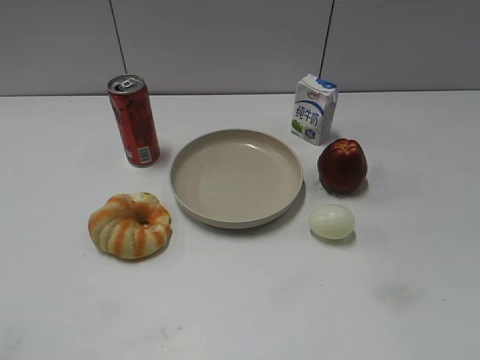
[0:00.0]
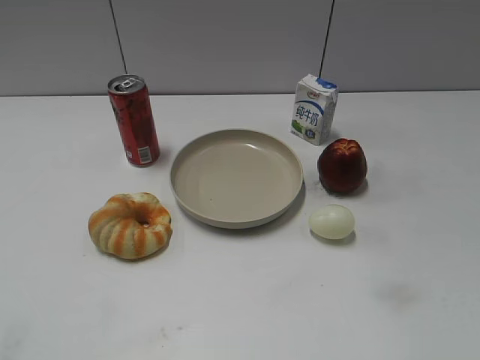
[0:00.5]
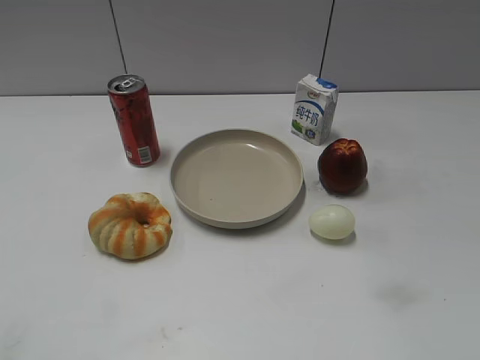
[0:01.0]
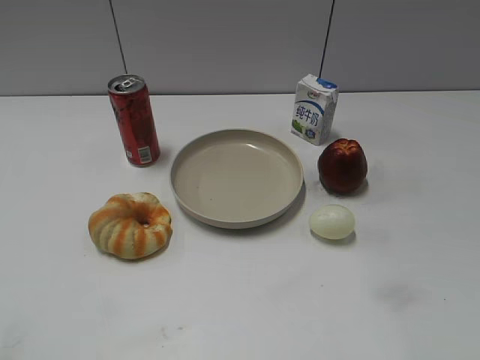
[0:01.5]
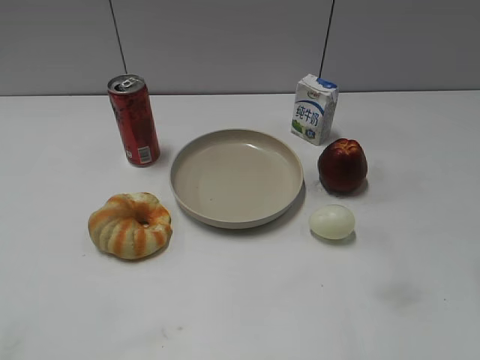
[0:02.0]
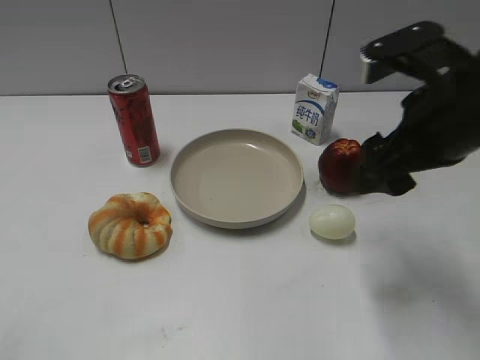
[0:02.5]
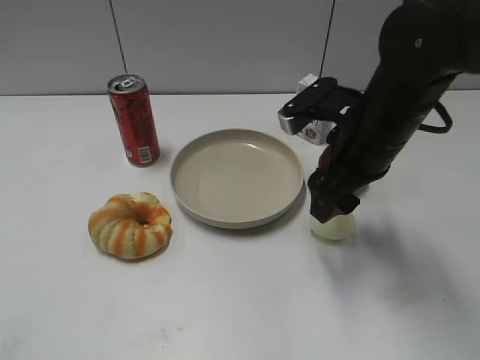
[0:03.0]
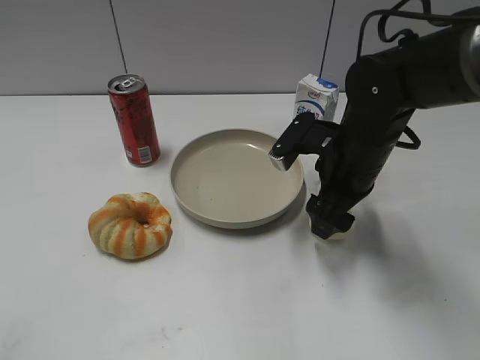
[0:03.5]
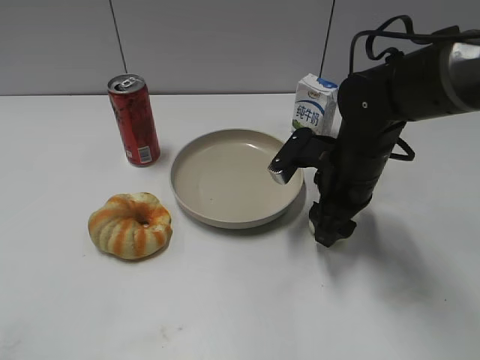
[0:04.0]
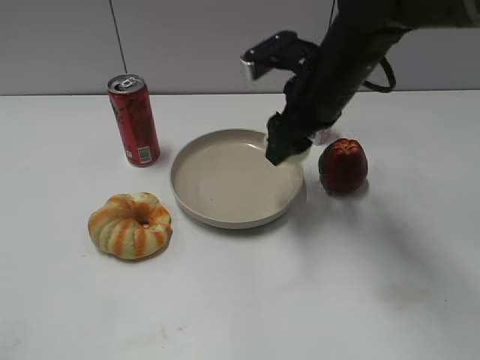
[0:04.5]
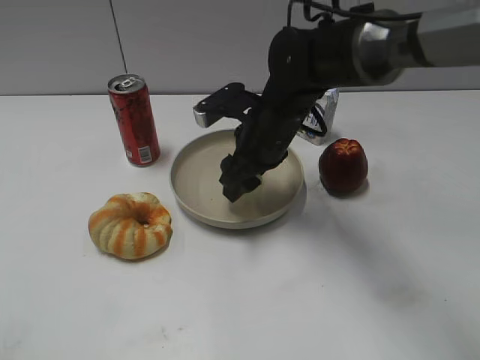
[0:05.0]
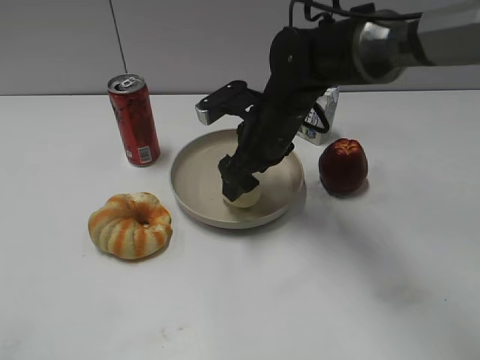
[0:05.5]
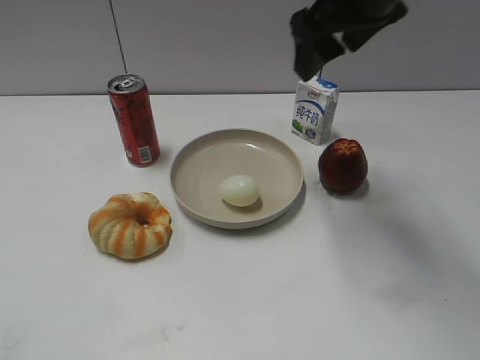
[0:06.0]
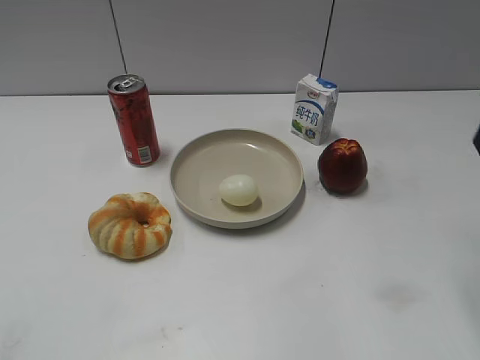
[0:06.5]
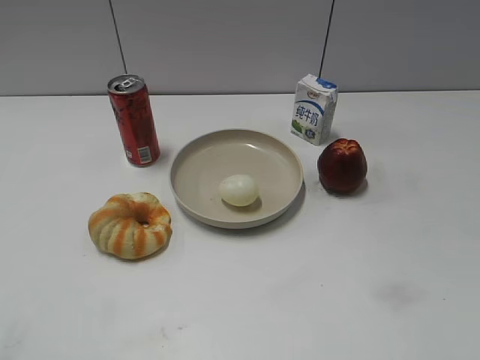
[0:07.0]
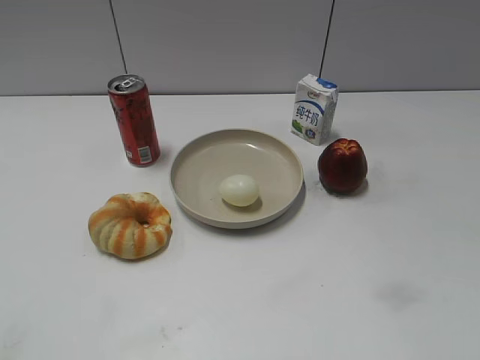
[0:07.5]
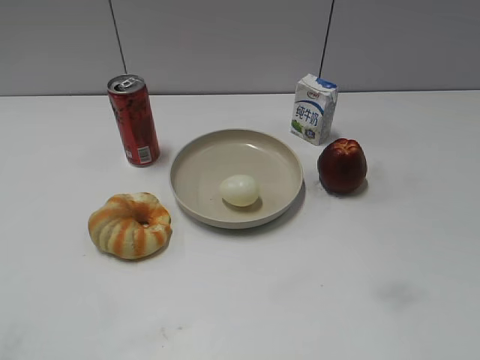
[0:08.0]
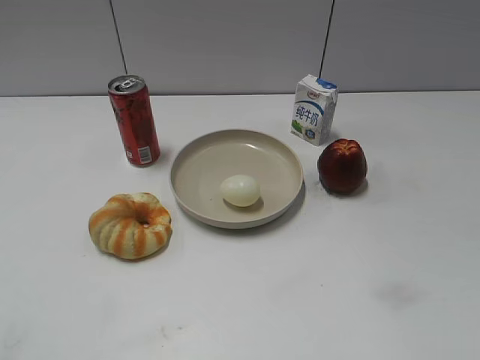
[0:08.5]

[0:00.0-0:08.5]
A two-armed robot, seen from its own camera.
Step, 0:01.5 to 0:04.0: Grasp the egg with right gripper.
Step, 0:04.5 to 0:05.5: Place the egg on the plate with right gripper.
0:02.0 to 0:04.0: The right gripper travels downward, forward and to the left by some 30 cm, and closes up.
0:04.0 to 0:06.5: The right gripper goes up and down, roughly 20 cm each way, reversing 2 times, and opens its fingers.
